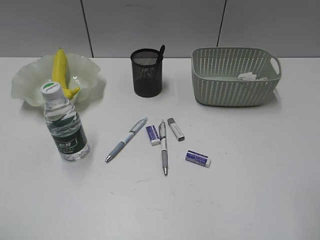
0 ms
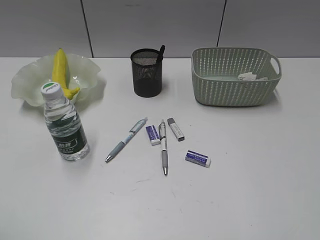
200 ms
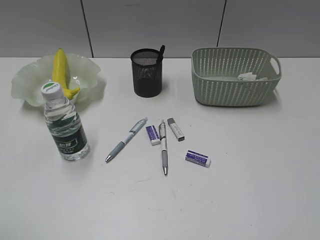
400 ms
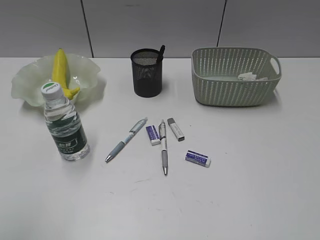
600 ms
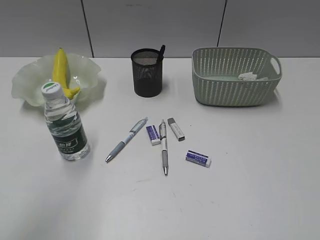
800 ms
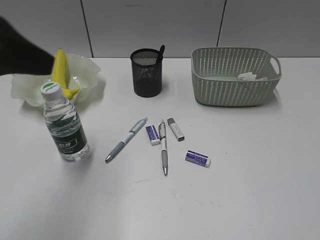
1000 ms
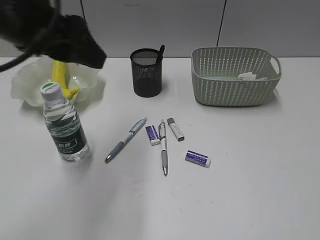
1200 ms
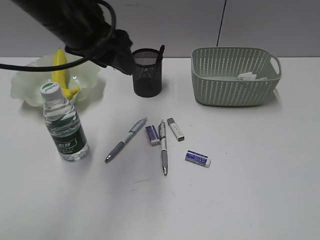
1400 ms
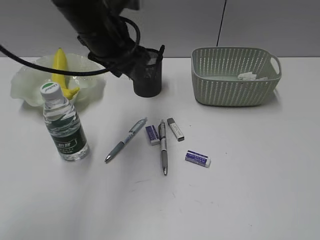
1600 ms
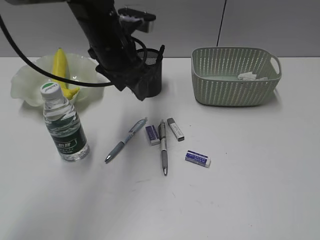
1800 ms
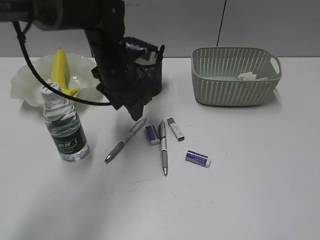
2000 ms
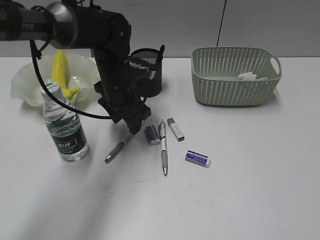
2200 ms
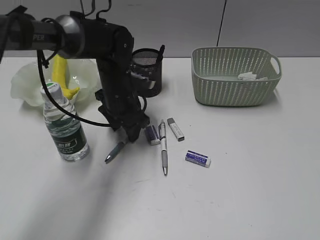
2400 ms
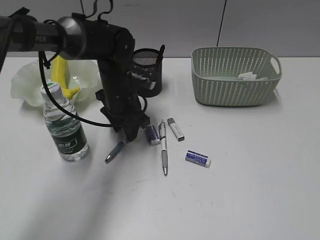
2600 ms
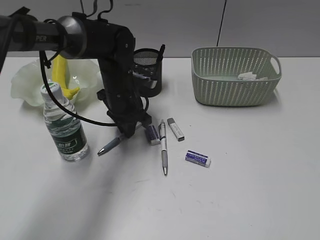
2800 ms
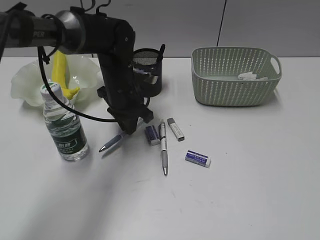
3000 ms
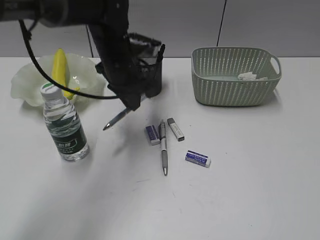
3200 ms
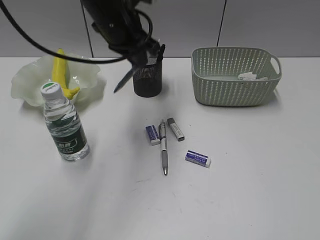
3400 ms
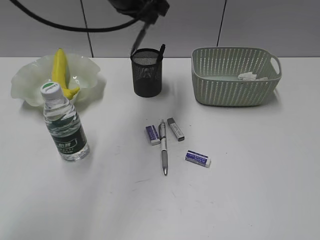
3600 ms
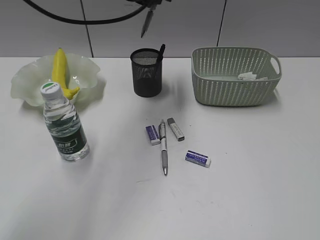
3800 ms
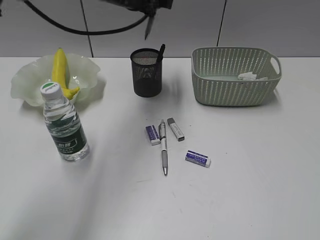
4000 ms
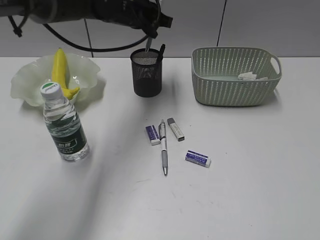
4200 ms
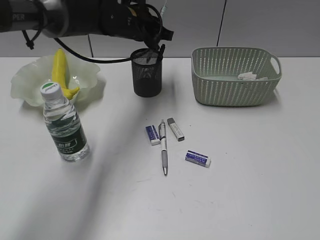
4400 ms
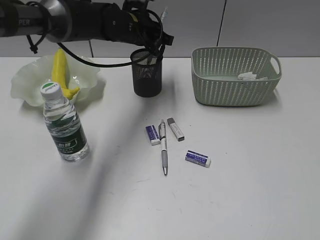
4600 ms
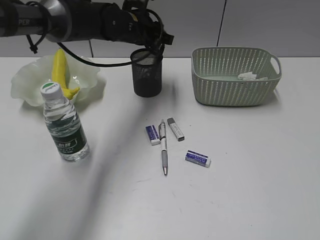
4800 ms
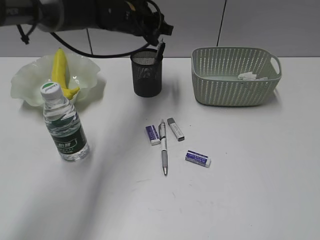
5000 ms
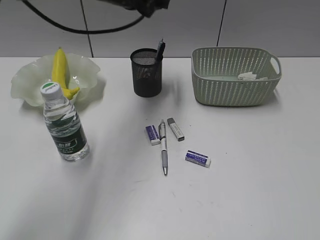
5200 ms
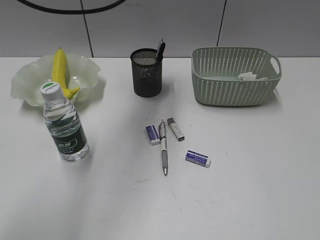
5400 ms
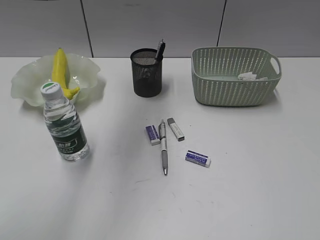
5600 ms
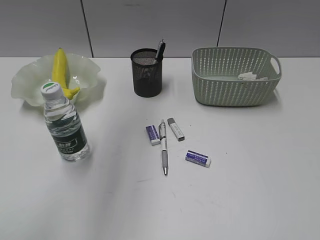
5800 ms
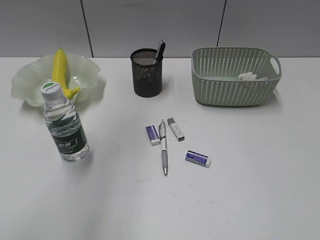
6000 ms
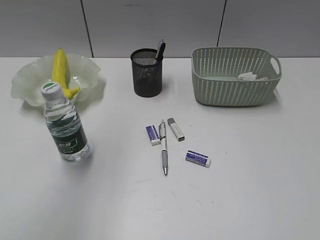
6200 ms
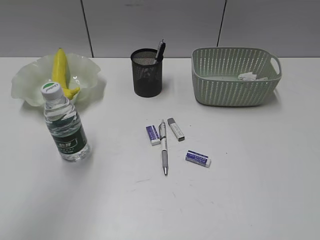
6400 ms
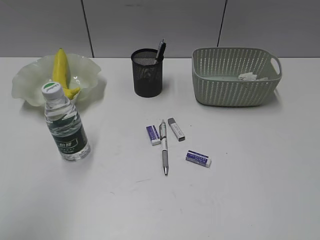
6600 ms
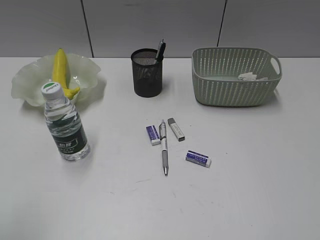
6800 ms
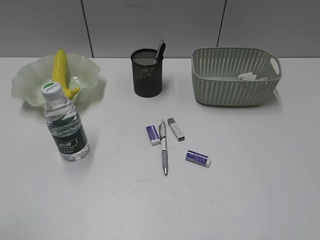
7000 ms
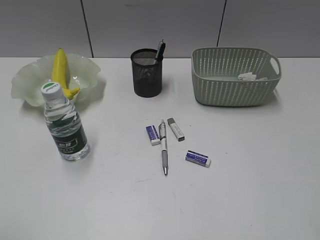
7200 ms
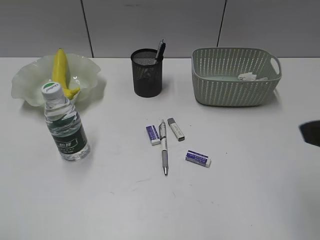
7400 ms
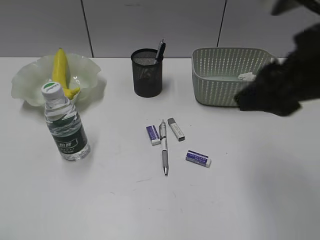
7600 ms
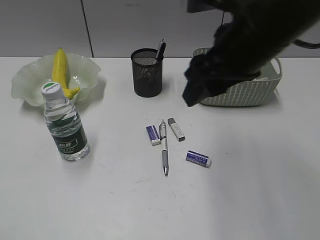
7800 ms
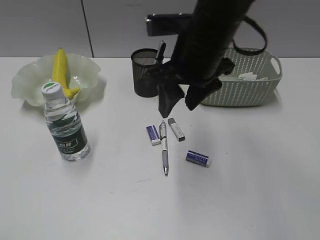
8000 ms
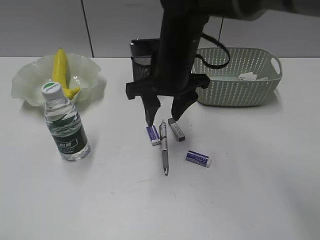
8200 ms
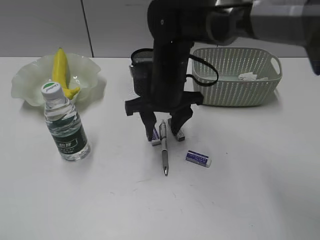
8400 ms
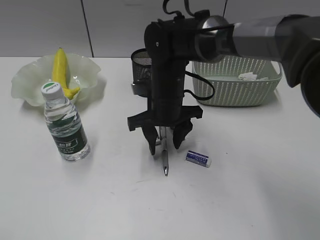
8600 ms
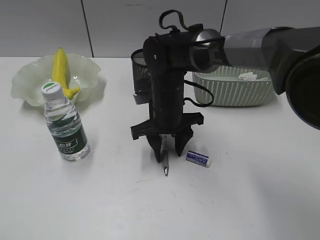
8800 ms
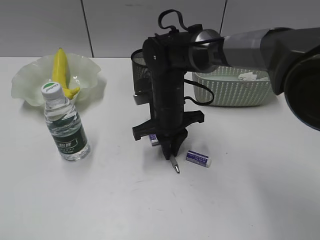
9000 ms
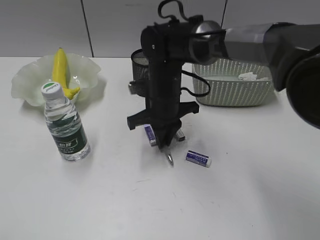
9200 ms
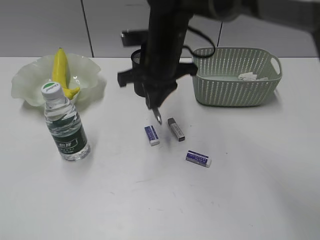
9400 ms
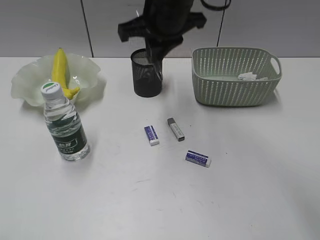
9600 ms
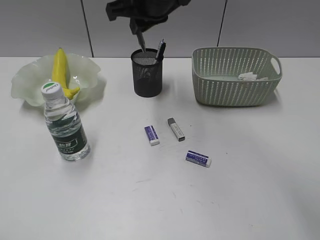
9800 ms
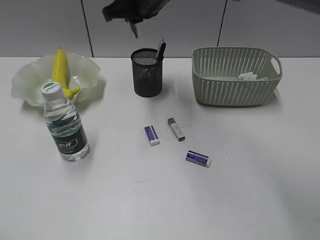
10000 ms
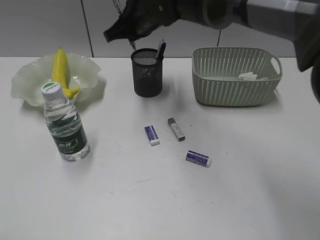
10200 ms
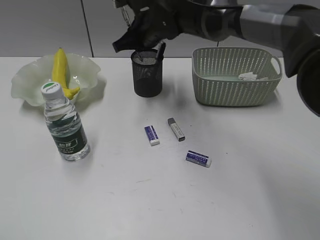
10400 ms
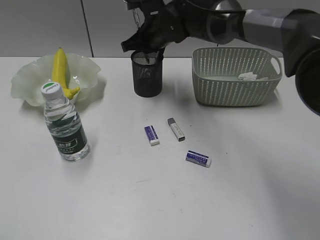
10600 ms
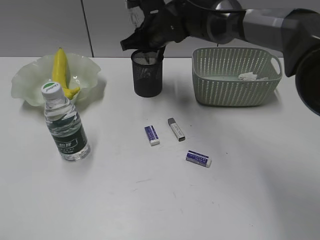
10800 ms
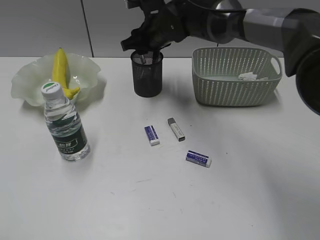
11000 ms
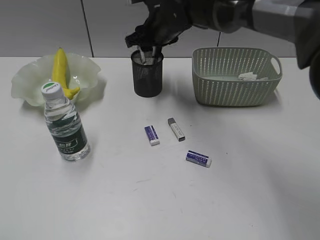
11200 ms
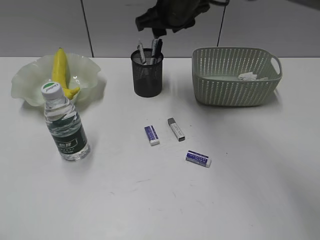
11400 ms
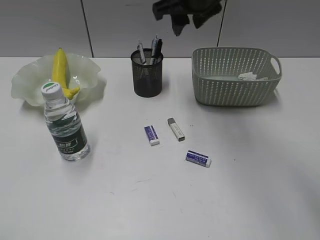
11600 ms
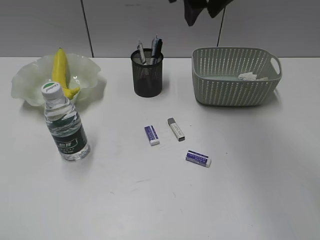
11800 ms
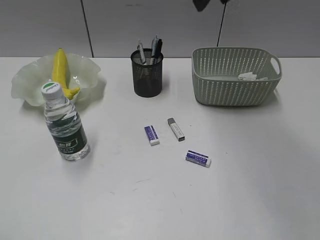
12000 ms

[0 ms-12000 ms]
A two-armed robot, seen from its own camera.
Step, 0 ms to 2800 ms: Grasp the blue pen with left gripper.
Step, 3000 ms to 4800 ms: Place the blue pen in pen holder with left gripper.
Step, 5000 ms to 9000 ms: Grasp the gray pen with right gripper.
Step, 9200 ms to 11200 ms: Place the gray pen in pen holder with right gripper.
0 ms to 1600 ms: The left gripper goes some 40 cm forward and to the right. Meanwhile the right gripper goes approximately 15 cm backward and to the right.
1600 ms to 3000 ms: The left gripper shifts roughly 15 cm downward, and closes.
3000 ms to 4400 ms: The left gripper goes roughly 10 cm upward and forward.
4400 ms to 6000 ms: The left gripper shifts roughly 35 cm upward, backward and to the left, and opens up.
6000 ms to 7600 ms: The right gripper is displaced forward and to the left by some 25 cm, while the left gripper shifts about 35 cm backward, downward and to the left.
7600 ms to 9000 ms: The right gripper moves downward, forward and to the left, about 30 cm, and closes up.
9000 ms to 10400 ms: The right gripper is displaced upward and forward by approximately 15 cm.
10400 ms to 12000 ms: The right gripper is displaced upward, backward and to the right by about 25 cm, and opens.

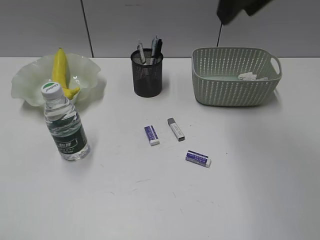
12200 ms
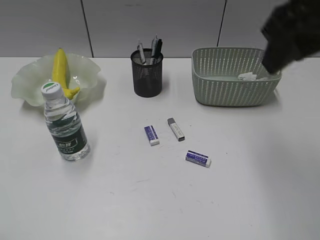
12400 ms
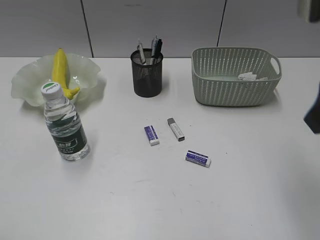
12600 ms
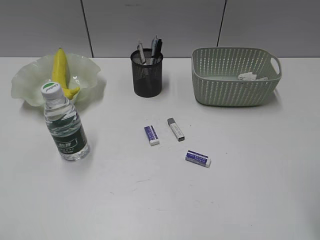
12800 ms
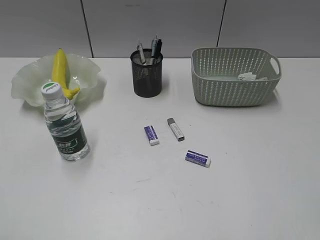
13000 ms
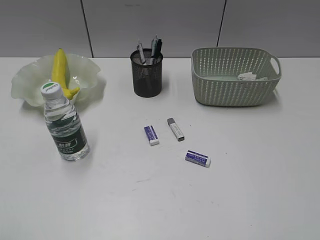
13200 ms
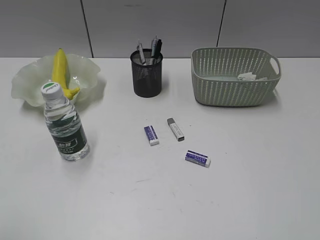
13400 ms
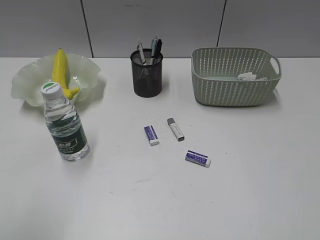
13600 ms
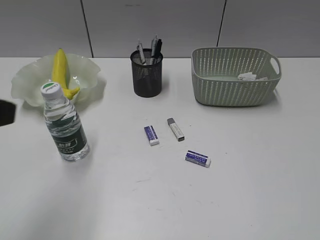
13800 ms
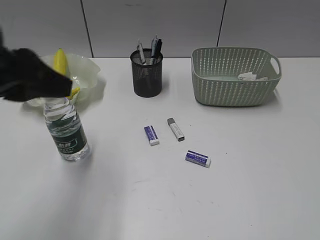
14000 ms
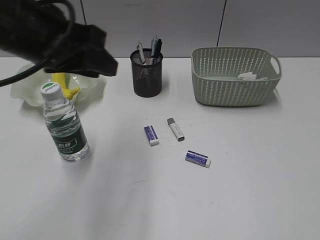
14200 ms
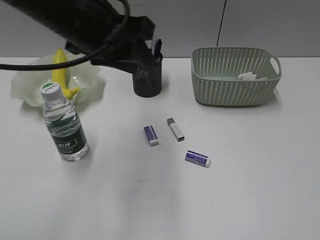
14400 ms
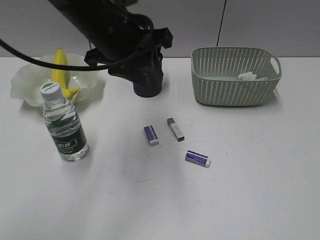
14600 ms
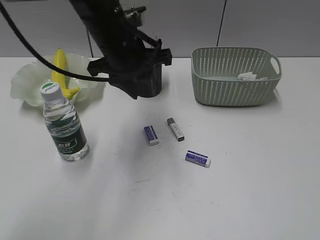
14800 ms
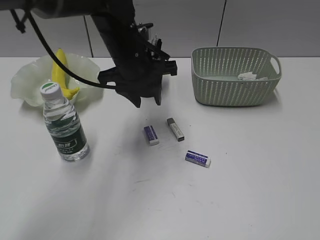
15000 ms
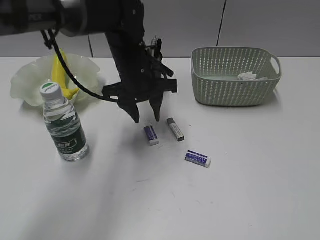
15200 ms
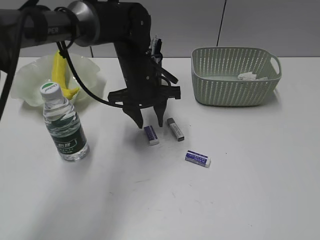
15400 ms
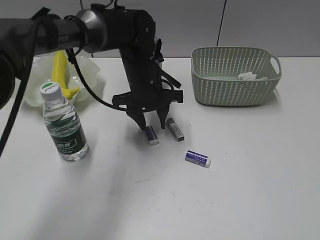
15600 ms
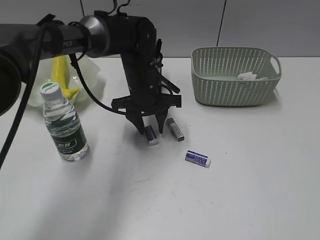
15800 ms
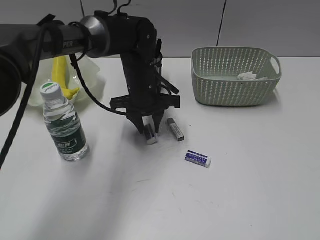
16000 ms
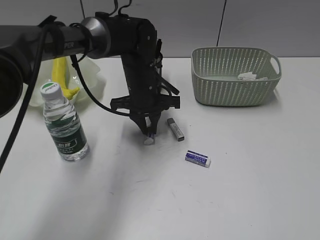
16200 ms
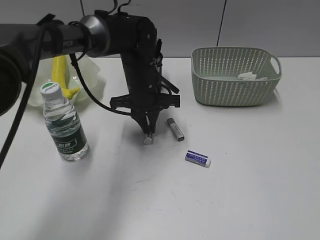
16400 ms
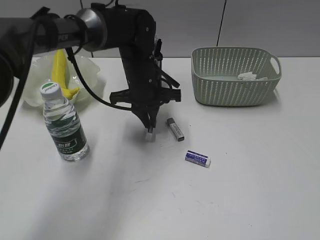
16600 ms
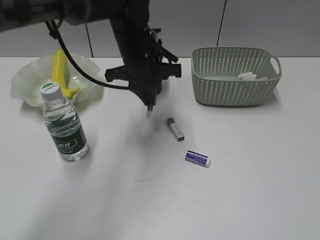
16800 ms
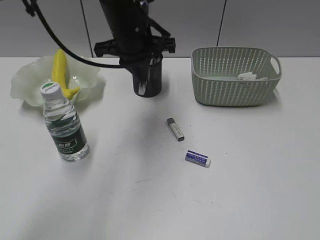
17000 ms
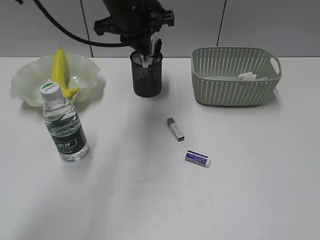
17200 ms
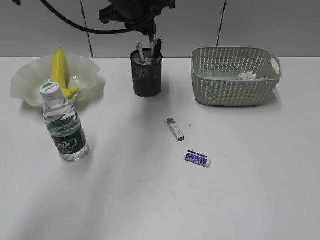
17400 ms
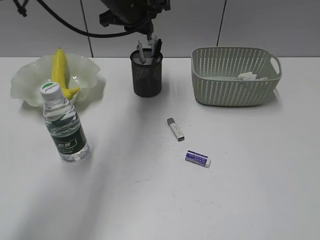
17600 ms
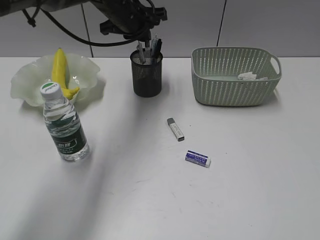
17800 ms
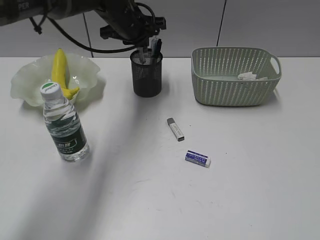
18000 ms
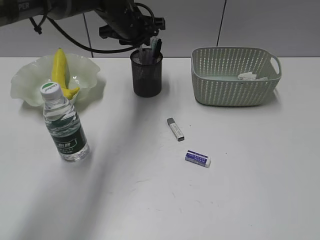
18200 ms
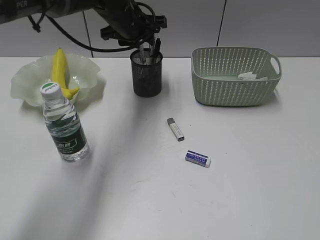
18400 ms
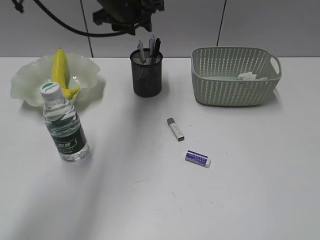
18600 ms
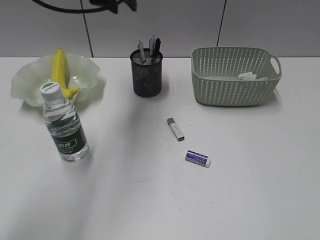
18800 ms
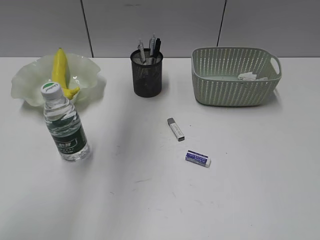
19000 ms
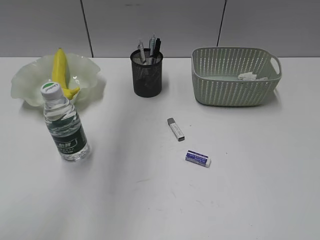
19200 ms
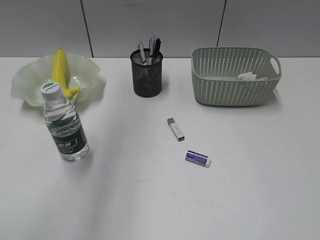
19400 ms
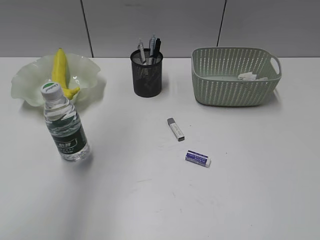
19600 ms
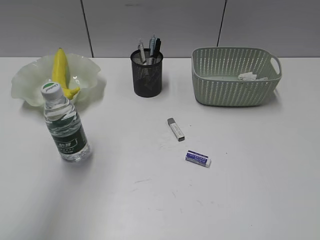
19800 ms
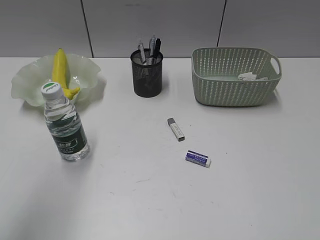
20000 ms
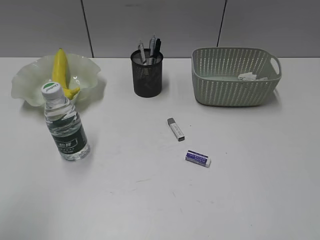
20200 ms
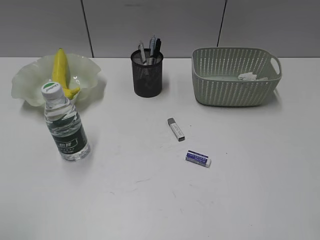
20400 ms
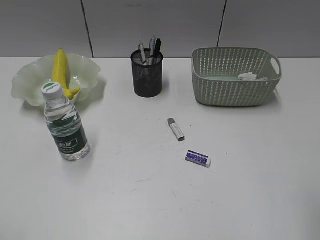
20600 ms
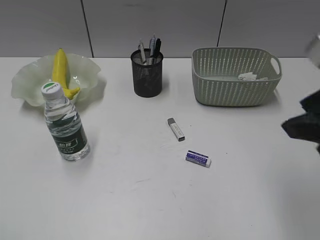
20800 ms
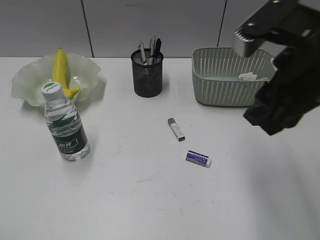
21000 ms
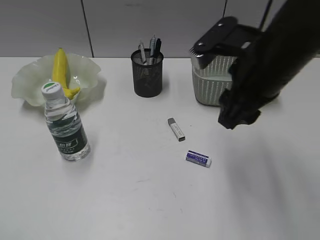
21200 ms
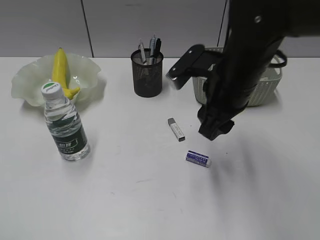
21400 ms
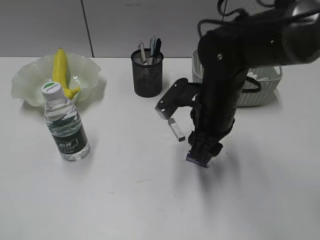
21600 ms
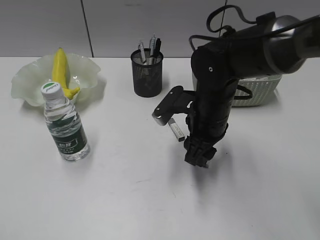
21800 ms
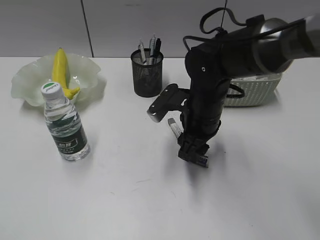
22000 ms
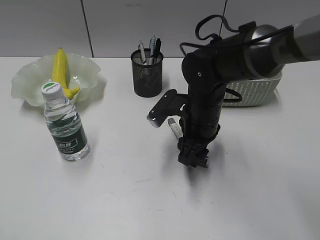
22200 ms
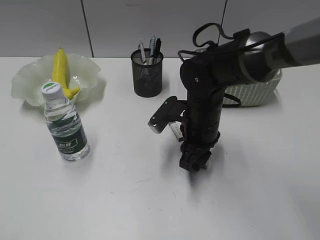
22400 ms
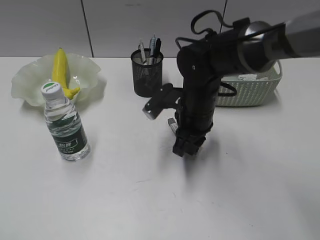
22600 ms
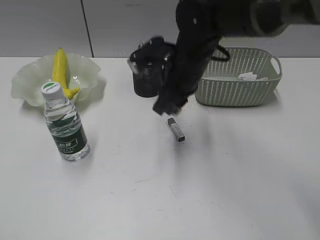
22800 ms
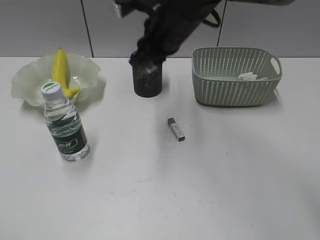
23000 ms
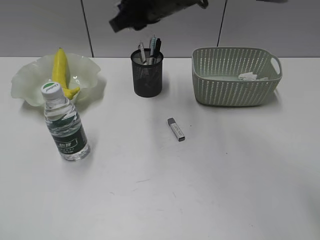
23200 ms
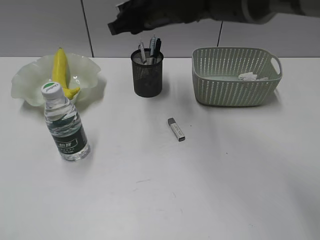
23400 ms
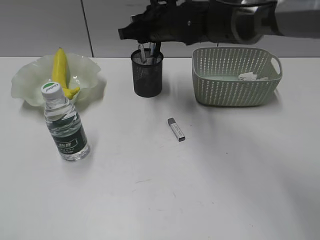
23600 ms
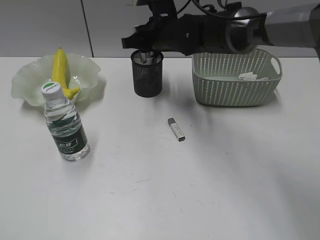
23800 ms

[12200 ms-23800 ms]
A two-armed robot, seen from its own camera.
Step, 12200 ms to 16400 ms: Grasp the eraser with left gripper.
Step, 16600 ms to 18200 ms: Place the eraser in pen holder with left gripper.
Step, 18400 ms to 22400 ms: Grasp the eraser with right gripper.
12200 ms to 13600 ms: The right gripper travels backward and to the right by some 35 cm.
13600 ms to 15000 ms: The left gripper is displaced forward and to the right by approximately 40 cm.
15000 ms to 16600 ms: The left gripper moves downward, approximately 5 cm, and closes up.
16600 ms to 18000 ms: The left gripper shifts some 10 cm forward and upward.
18000 ms to 19400 ms: The left gripper travels upward, backward and to the left by roughly 30 cm, and opens its fingers.
19400 ms to 21000 ms: The left gripper goes some 40 cm backward, downward and to the left; the right gripper goes about 25 cm forward and to the left.
21000 ms to 22400 ms: The right gripper moves downward, forward and to the left, roughly 25 cm.
22400 ms to 23800 ms: The right gripper travels forward, upward and to the left by some 15 cm, and closes its fingers.
